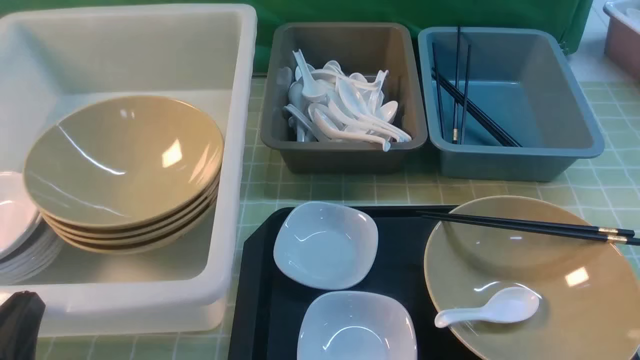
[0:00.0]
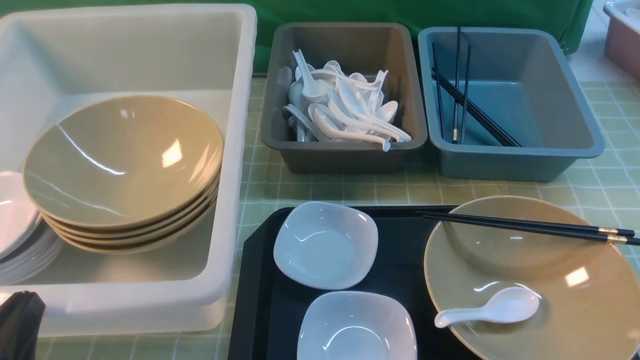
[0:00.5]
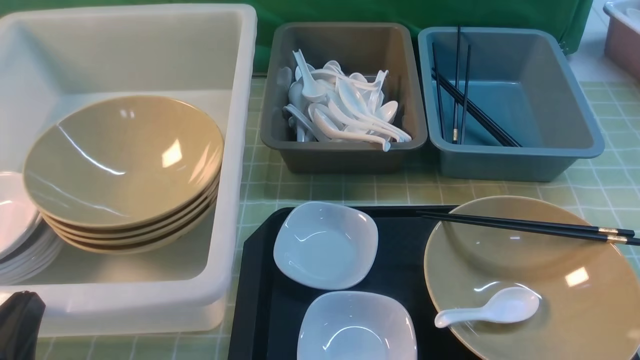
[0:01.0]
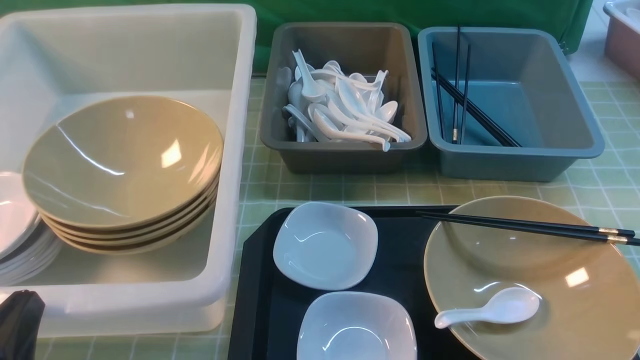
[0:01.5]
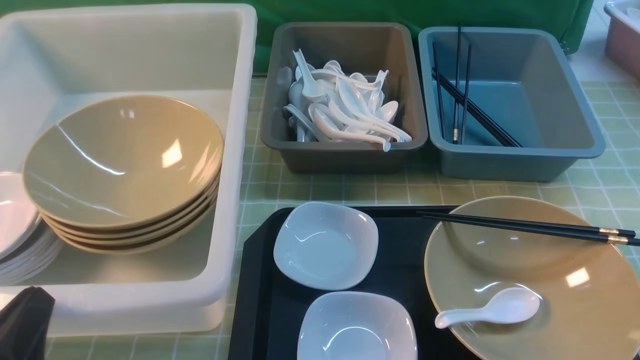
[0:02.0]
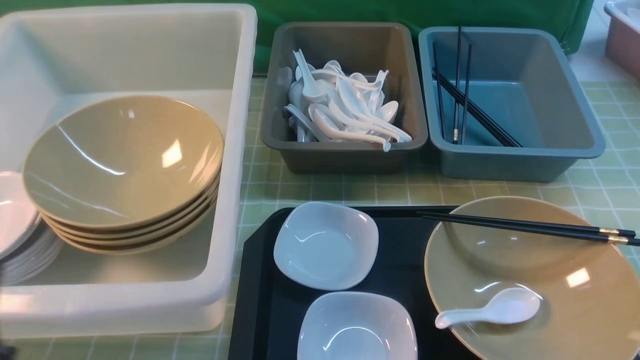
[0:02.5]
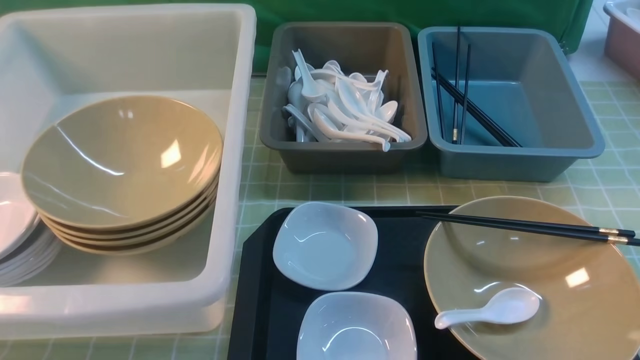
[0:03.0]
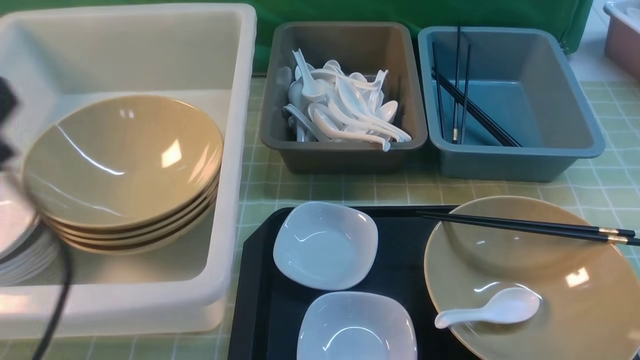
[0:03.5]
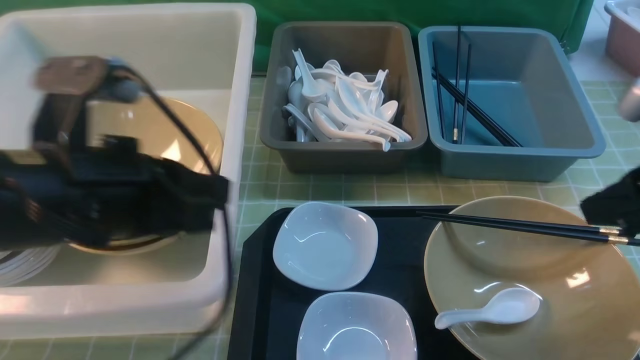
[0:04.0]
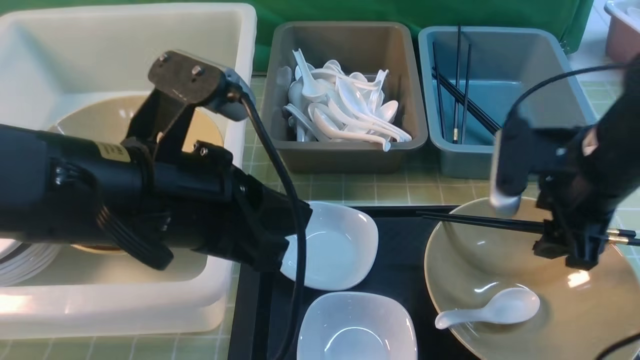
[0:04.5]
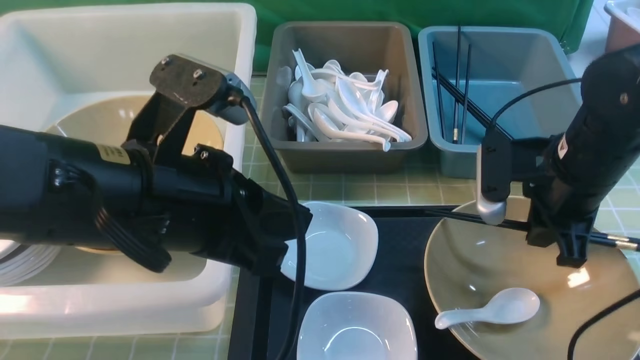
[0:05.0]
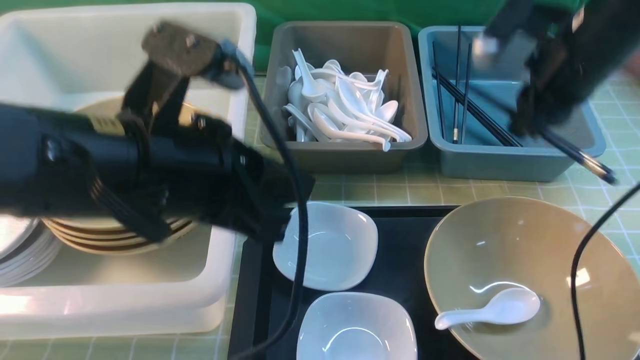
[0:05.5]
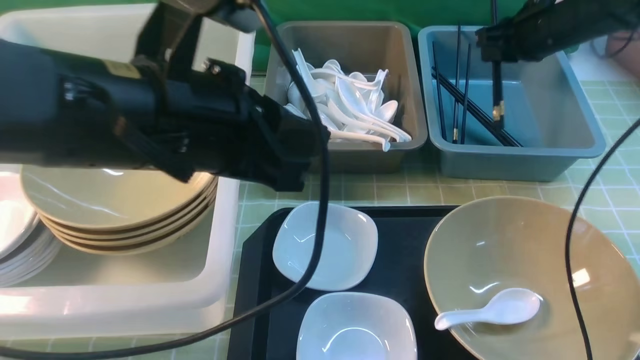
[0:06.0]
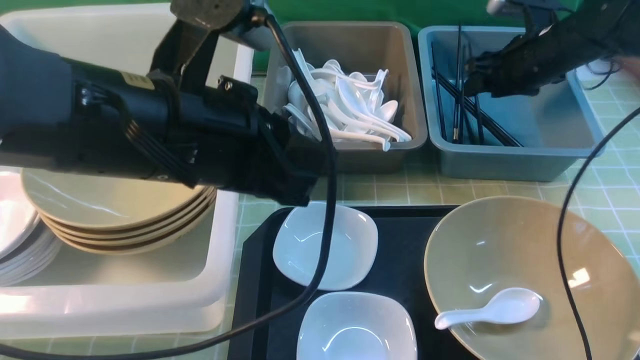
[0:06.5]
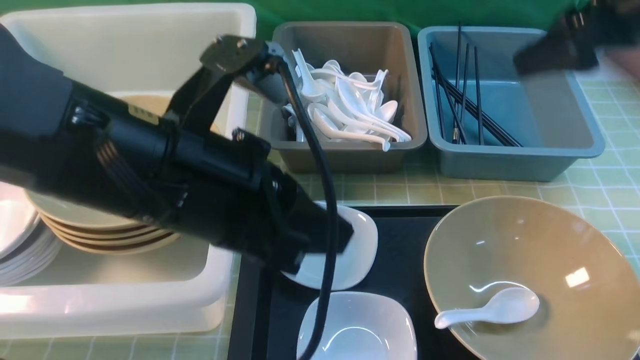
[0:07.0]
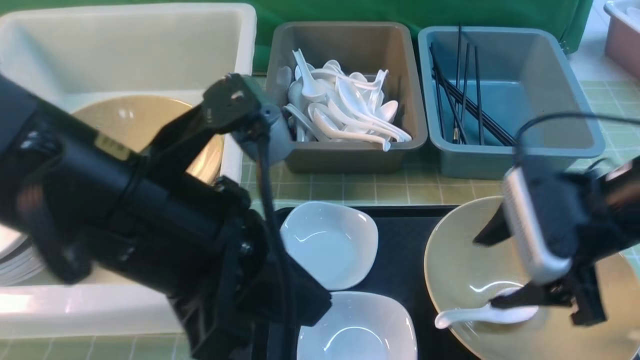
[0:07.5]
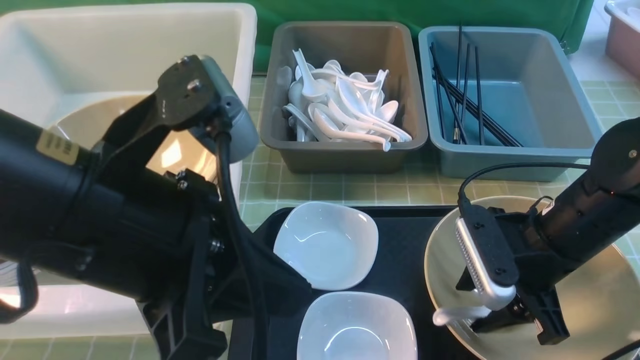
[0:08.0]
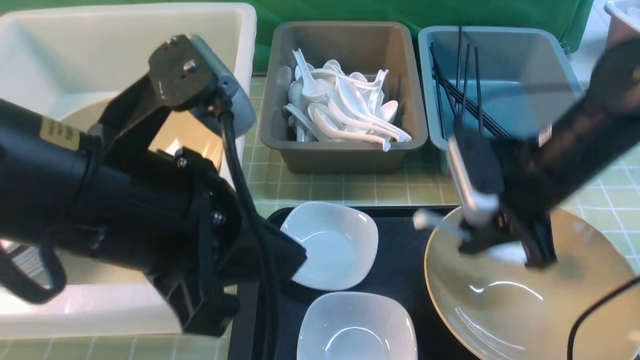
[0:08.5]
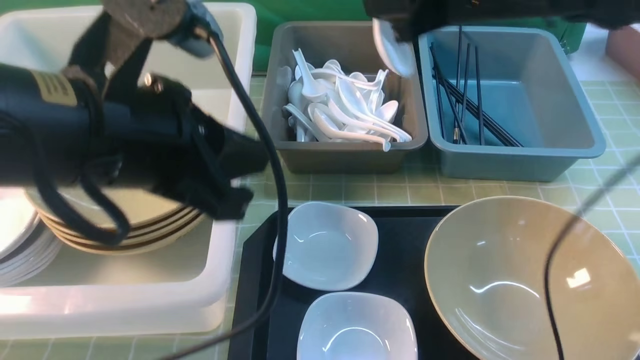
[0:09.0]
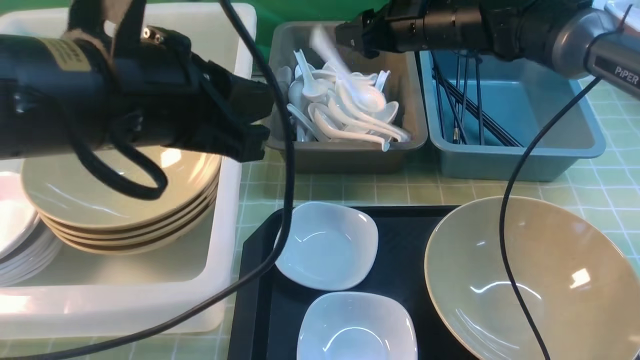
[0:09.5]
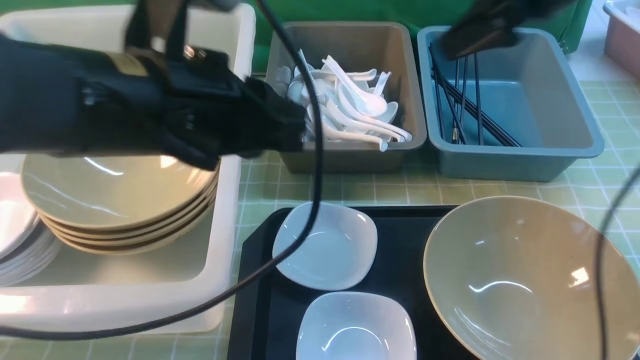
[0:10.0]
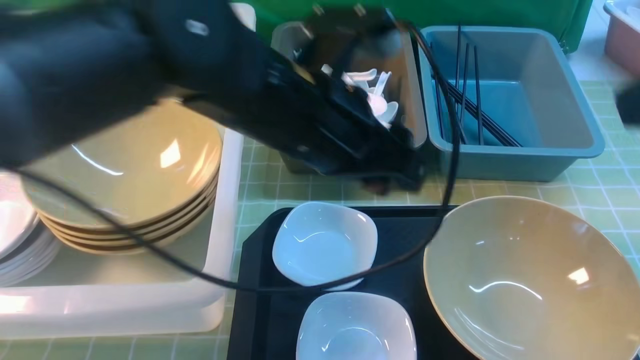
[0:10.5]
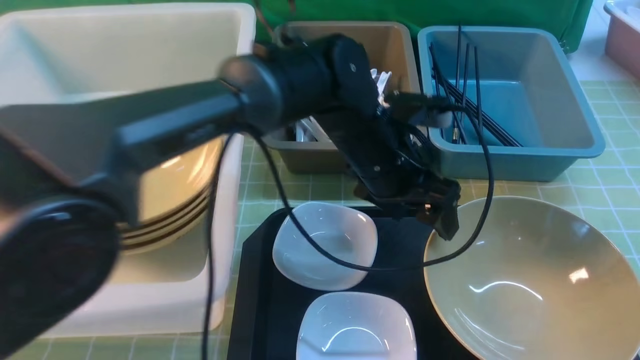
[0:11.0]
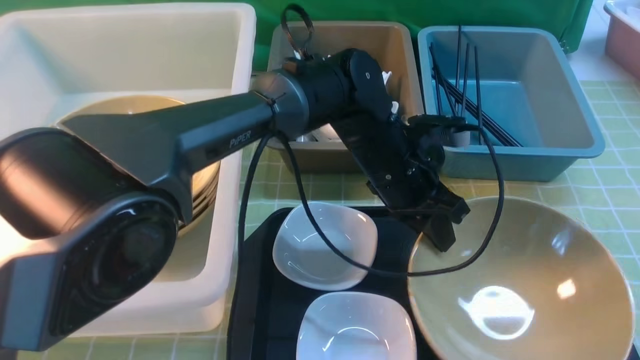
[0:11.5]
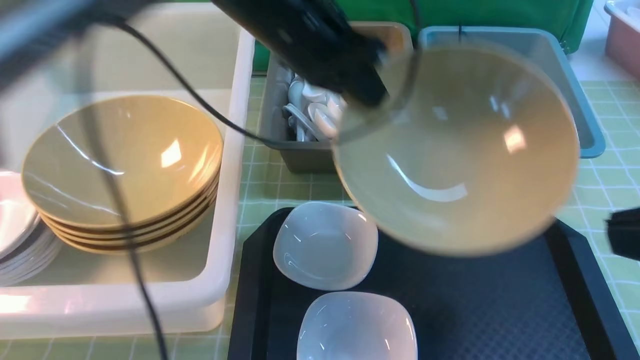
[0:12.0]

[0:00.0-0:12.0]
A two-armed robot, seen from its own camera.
Task of the whole recording: on green table put chopsticks spoon bowls plates into blue grey white boxes.
Step, 0.0 to 5.0 s: use the right arm to grab the chopsticks.
Step, 5.5 to 6.5 s: use the right arm to put the chopsticks into the small storage box on the right.
Step, 7.0 to 8.0 s: use the right arm to grab the soup spoon in the middle.
Step, 8.5 to 9.5 s: use the right arm to put the soup spoon into the small storage box in the middle.
Step, 10.0 to 11.5 s: use the left arm to grab the yellow noodle bowl on the left.
2.0 to 4.0 s: The right gripper heads forward and upward, covering approximately 20 cm, while the left gripper goes approximately 20 cm upward, forward and to the right.
4.0 to 6.0 s: The right gripper shifts approximately 25 cm forward; the left gripper travels to the right by approximately 5 cm.
6.0 to 8.0 s: The left gripper heads backward, covering about 5 cm. The right gripper shifts about 20 cm backward, and opens its fingers.
8.0 to 10.0 s: The left gripper moves forward, about 10 cm. The right gripper travels upward and forward by approximately 25 cm, and closes and opens again.
10.0 to 12.0 s: The right gripper is displaced backward by about 25 cm, and closes up; the left gripper shifts some 15 cm forward, goes to the right and returns, about 15 cm each way, and opens and closes again.

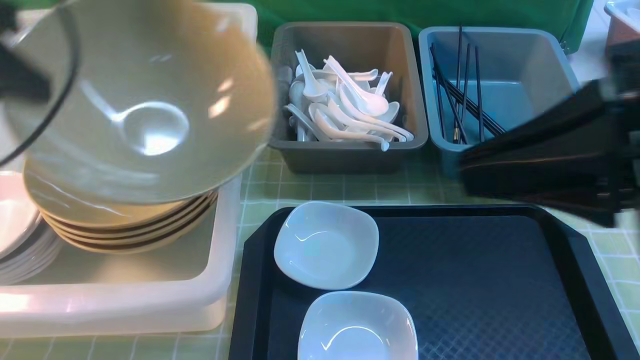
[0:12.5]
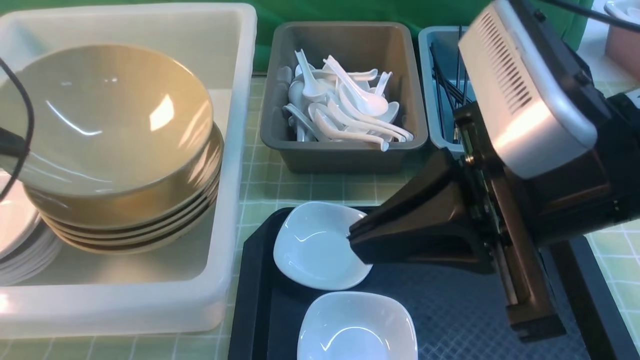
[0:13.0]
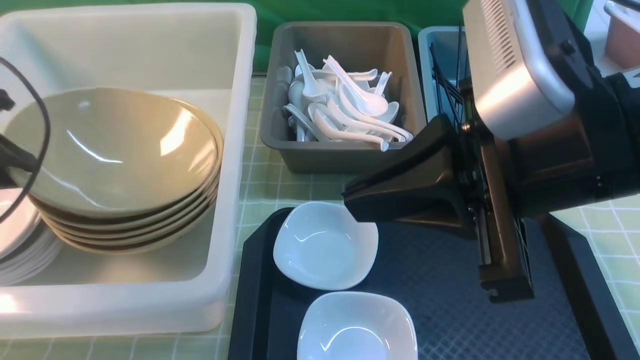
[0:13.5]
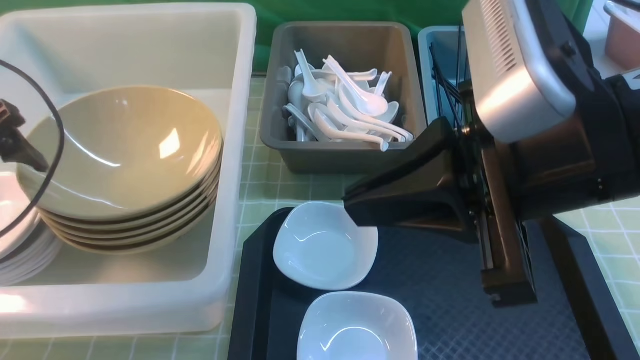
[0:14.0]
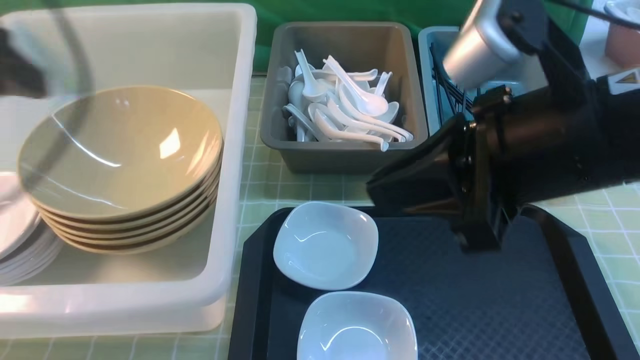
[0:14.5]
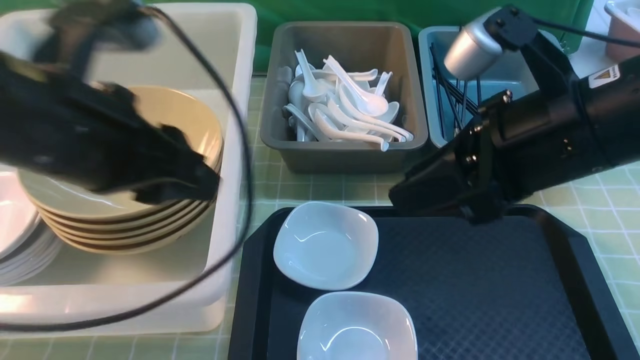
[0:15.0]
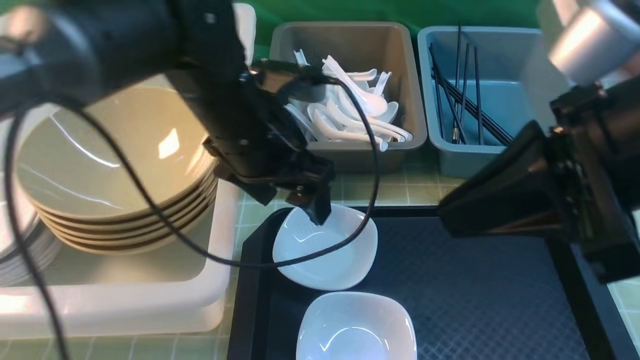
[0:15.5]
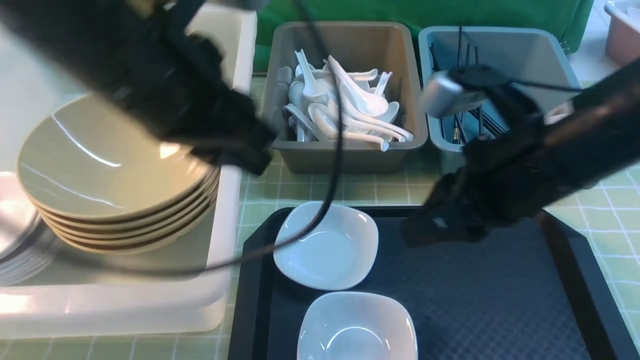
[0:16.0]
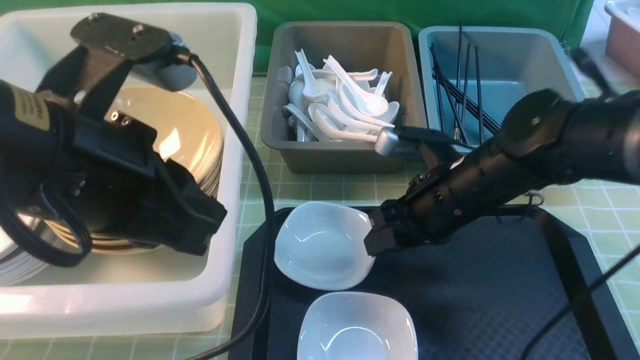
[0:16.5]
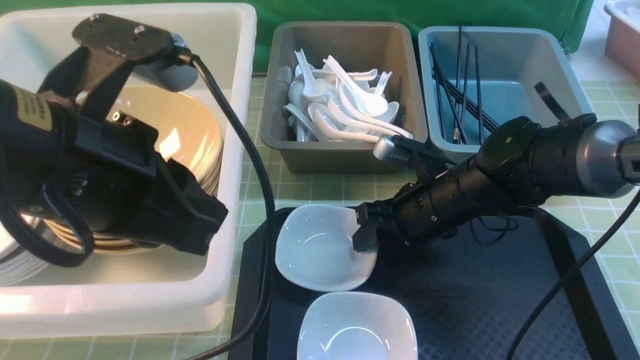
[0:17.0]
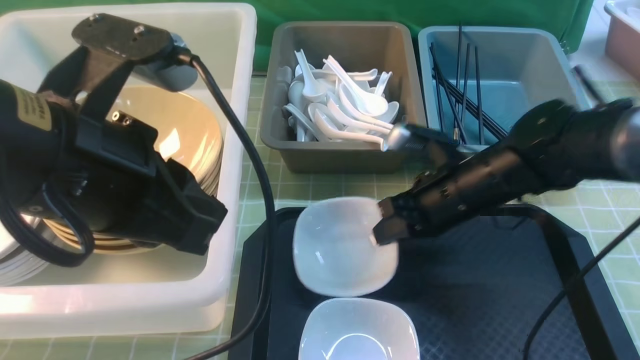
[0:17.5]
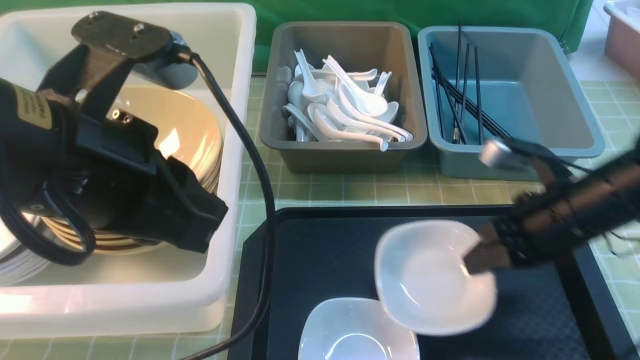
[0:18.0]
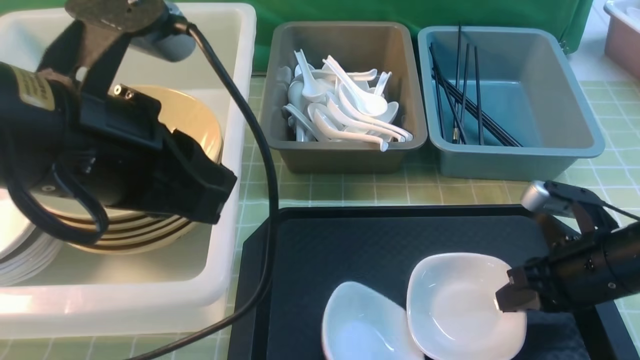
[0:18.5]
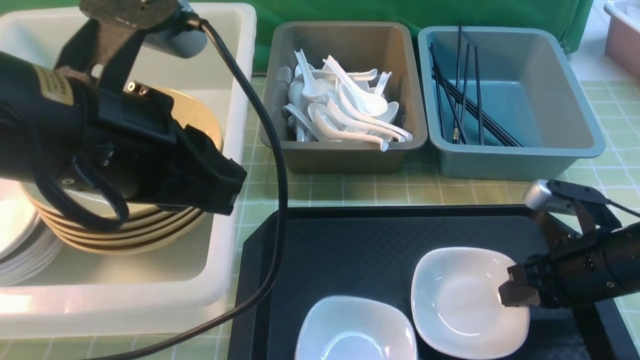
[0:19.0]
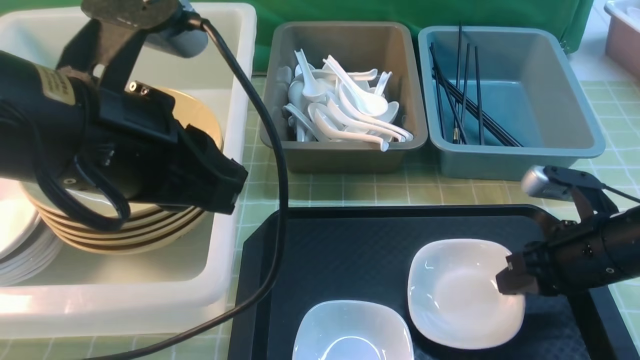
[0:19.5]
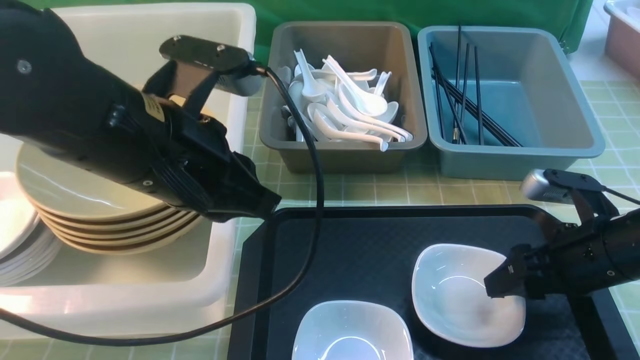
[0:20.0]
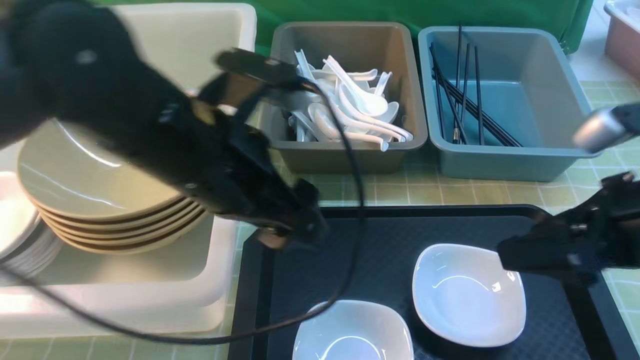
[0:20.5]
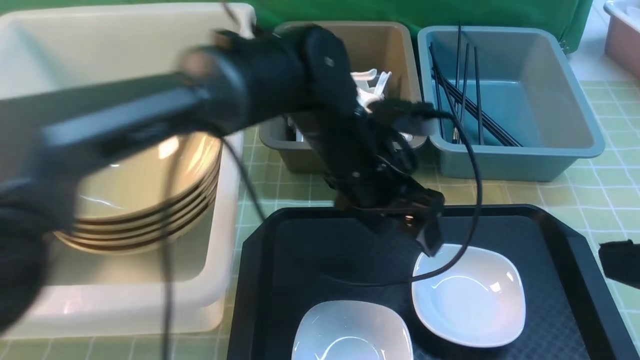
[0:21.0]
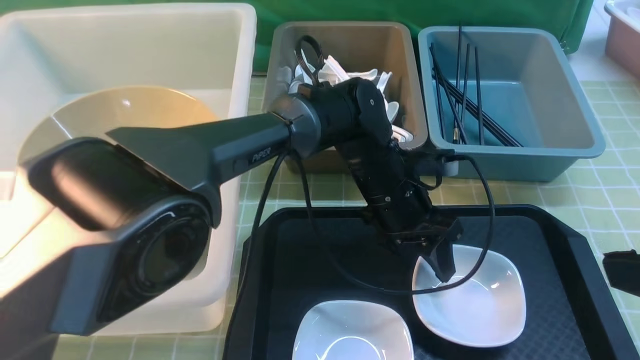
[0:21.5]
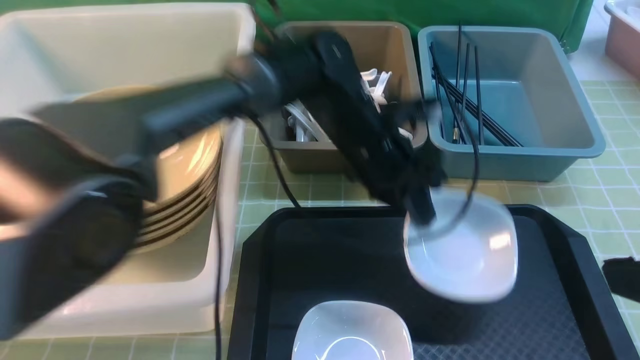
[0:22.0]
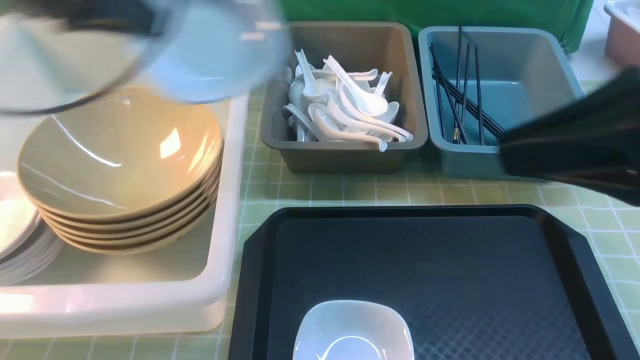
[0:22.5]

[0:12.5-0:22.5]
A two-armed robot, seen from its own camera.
Task of the whole recording: on green table put chopsticks spoon bowls plates into blue grey white boxes.
Step, 12.5 to 14.0 s: use the left arm to put the noodle bowl into the large storage box on the left.
Step, 14.5 to 17.5 s: use the right arm to grab the plate.
Step, 18.0 to 20.0 s: use the right arm to put the plate on the tray.
Step, 20.5 to 22.0 s: use the left arm to grab the plate.
12.5 to 14.5 s: The left gripper is displaced backward by about 5 cm, goes downward and returns, roughly 10 cm each way, and opens. The right gripper heads forward, covering roughly 5 cm.
14.5 to 16.5 s: The left gripper travels to the right by about 10 cm, and closes its fingers; the right gripper heads downward and forward, covering some 20 cm.
16.5 to 18.5 s: The right gripper heads to the right and backward, covering approximately 15 cm, and closes its fingers.
18.5 to 20.5 s: The left gripper shifts approximately 10 cm to the right, forward and downward, and opens its fingers. Meanwhile the right gripper moves upward, about 10 cm, and opens up.
20.5 to 22.5 s: The left gripper heads to the left and upward, covering about 20 cm, and closes up; the right gripper is displaced upward and to the left by about 15 cm, and closes.
